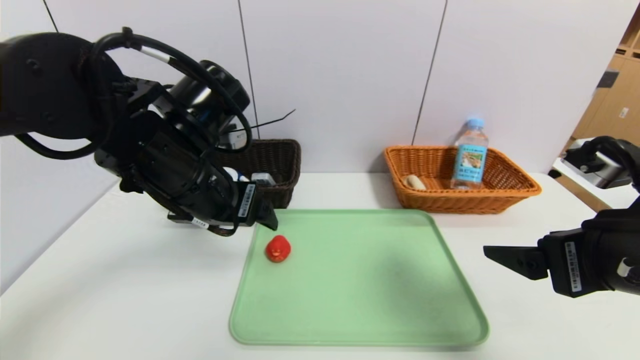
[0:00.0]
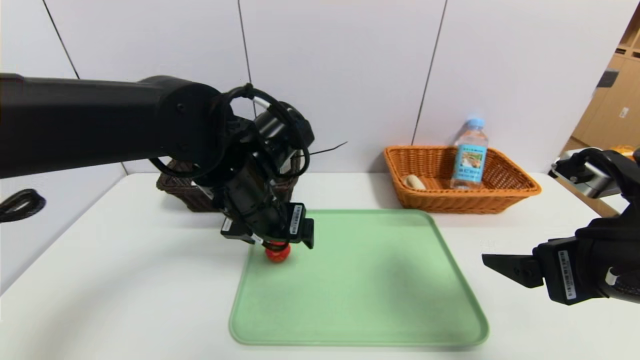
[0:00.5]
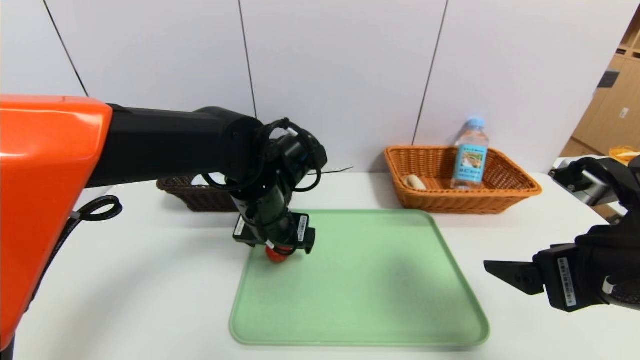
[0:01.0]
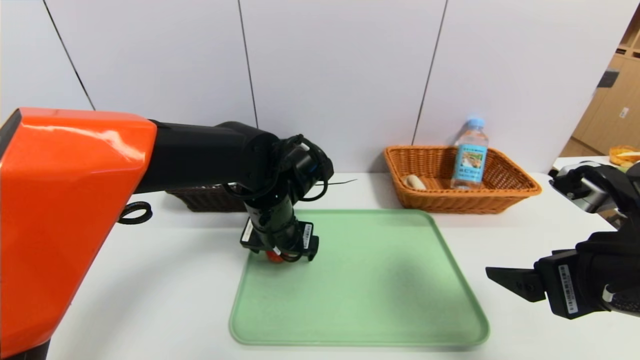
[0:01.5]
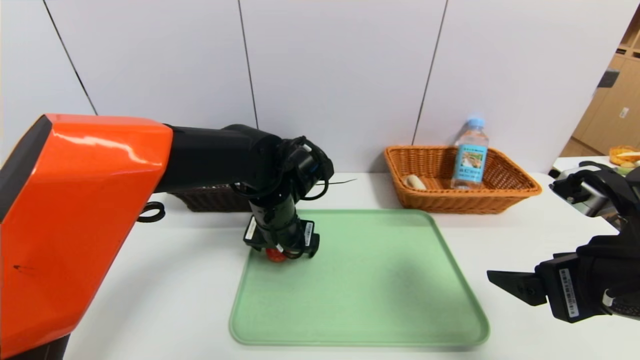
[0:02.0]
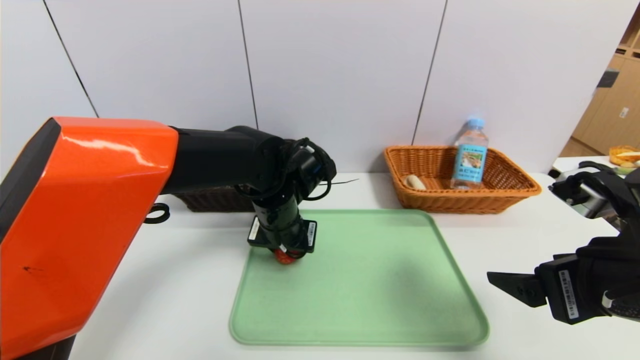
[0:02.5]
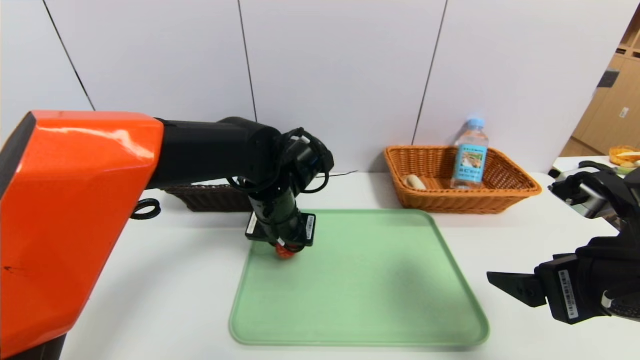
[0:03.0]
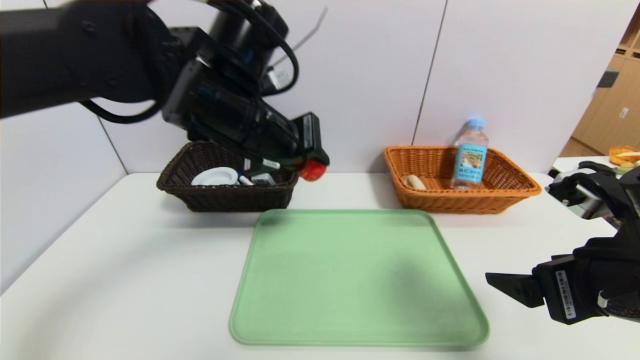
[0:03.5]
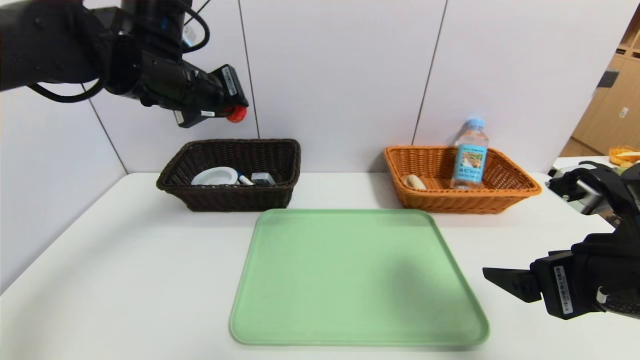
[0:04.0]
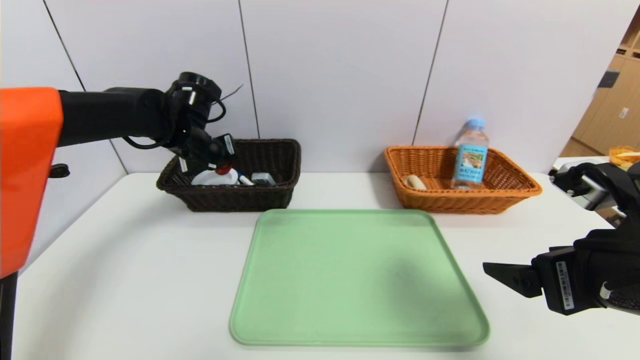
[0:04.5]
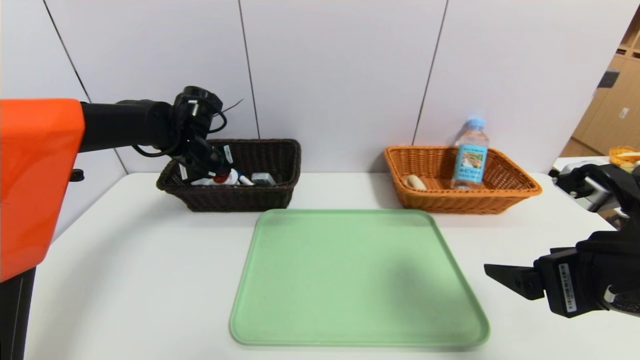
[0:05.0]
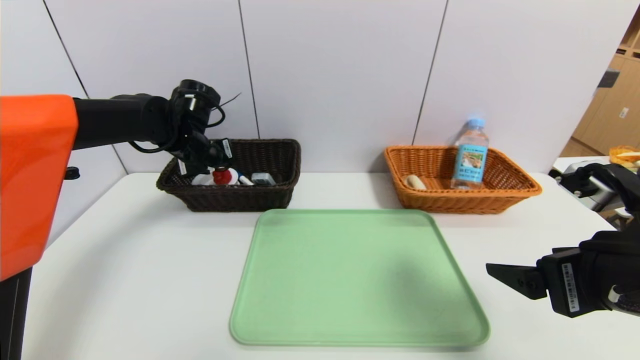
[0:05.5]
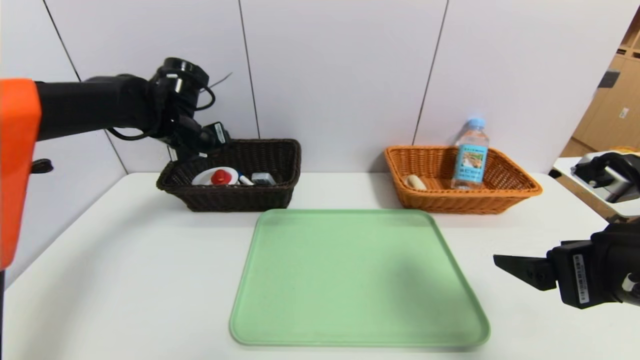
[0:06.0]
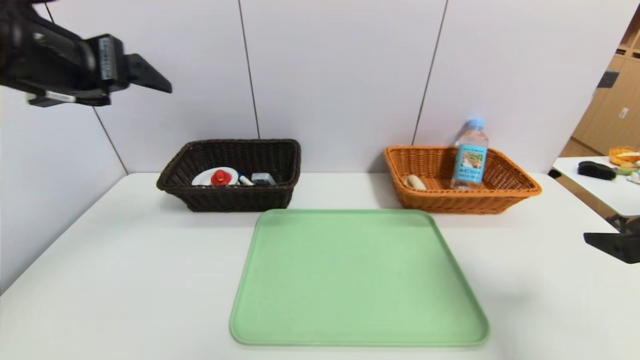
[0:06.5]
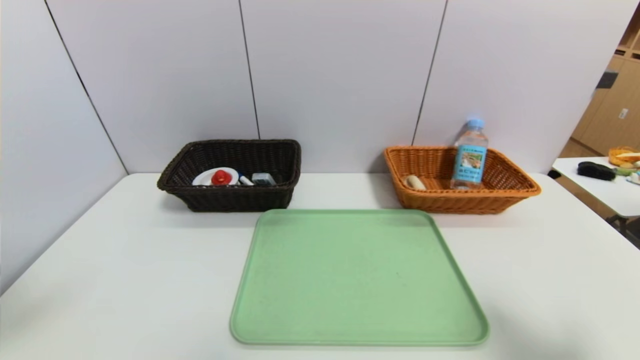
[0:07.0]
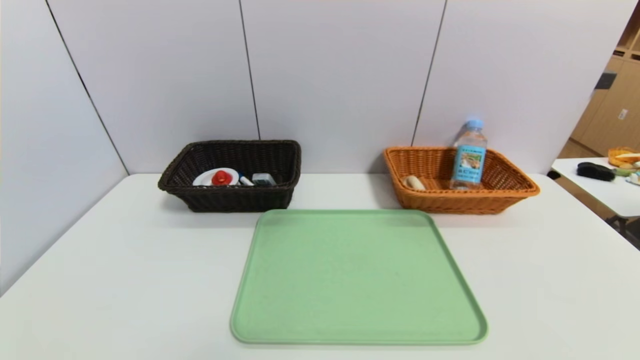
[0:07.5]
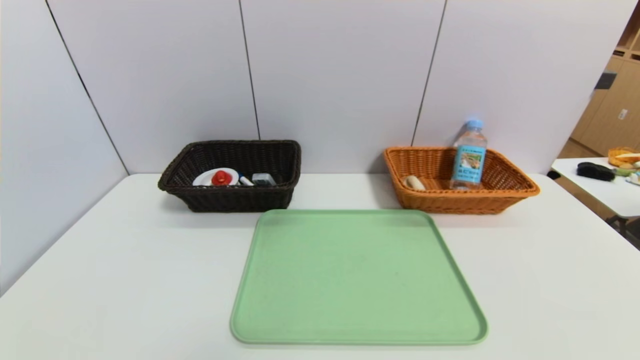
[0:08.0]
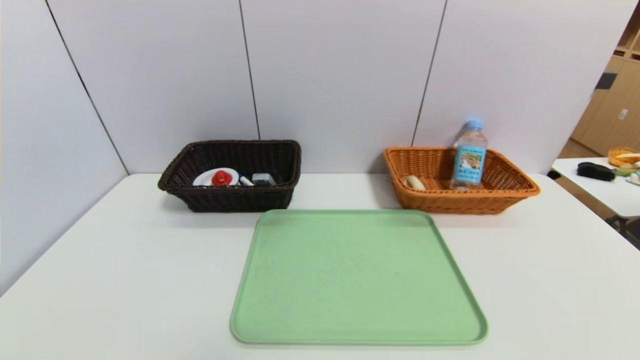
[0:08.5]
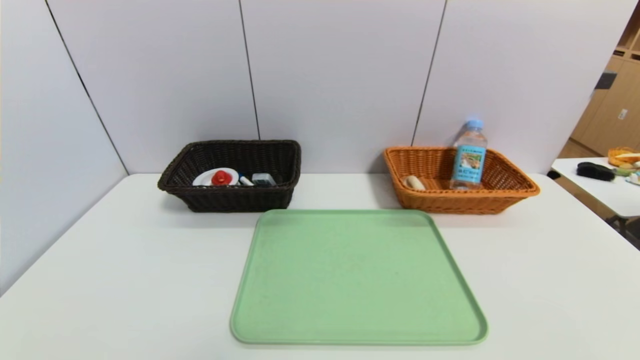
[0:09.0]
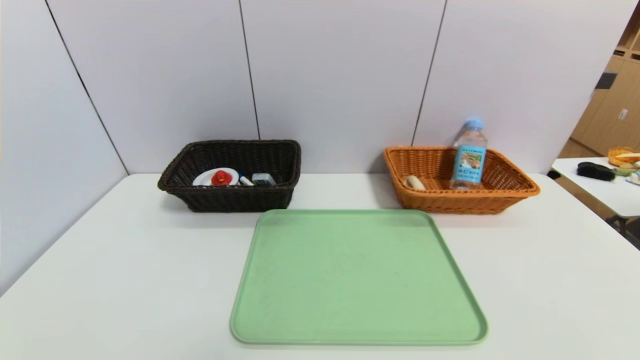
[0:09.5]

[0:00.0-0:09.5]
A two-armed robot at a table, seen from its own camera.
Task of the whole recording: place the food in the right basket with the right gripper, and place the non food items in the left basket with the left gripper.
Step, 0:00.0 to 0:05.5: Grasp the red duck and put it in the left basket.
0:00.0 to 0:02.0: The left gripper is displaced downward, to the right and forward by some 15 cm.
0:02.0 to 0:04.0: The left gripper is displaced upward and to the left by roughly 20 cm, and closes up.
0:04.0 to 0:05.5: The left gripper shifts some 15 cm downward and forward.
0:05.5 to 0:07.5: The left gripper is displaced backward by approximately 50 cm, and opens; the right gripper shifts some 20 cm backward and to the right.

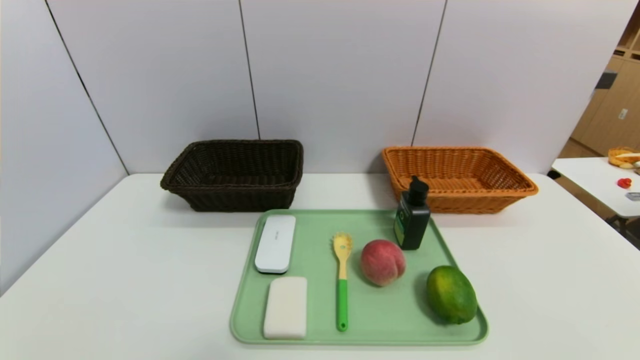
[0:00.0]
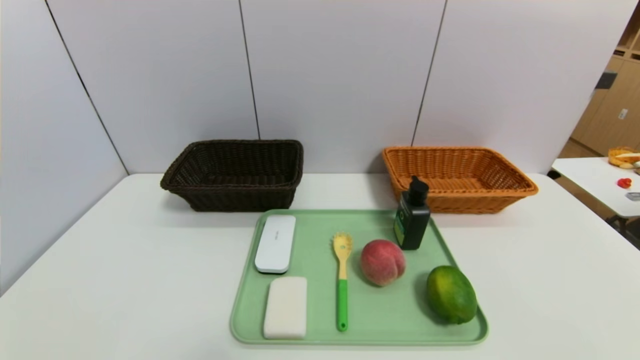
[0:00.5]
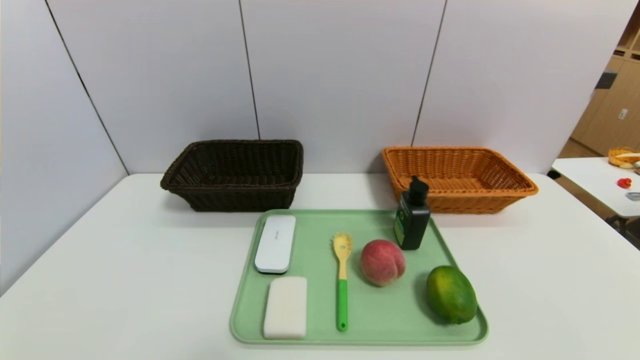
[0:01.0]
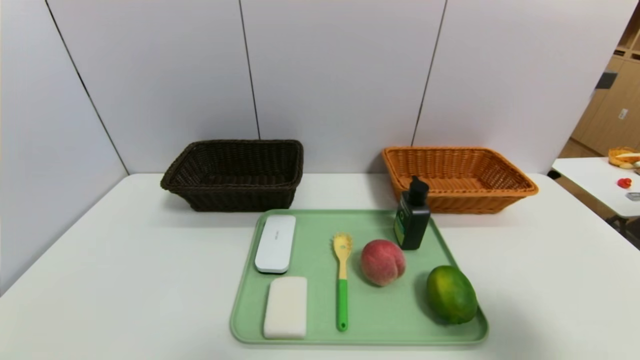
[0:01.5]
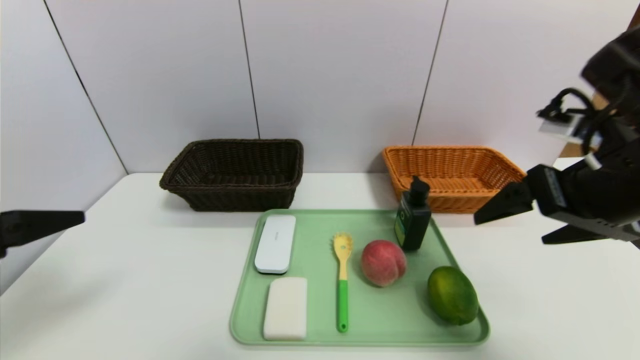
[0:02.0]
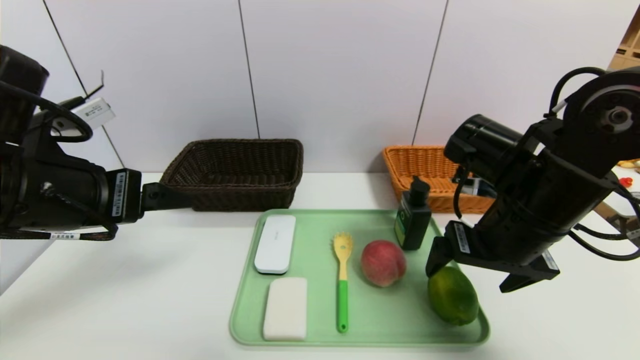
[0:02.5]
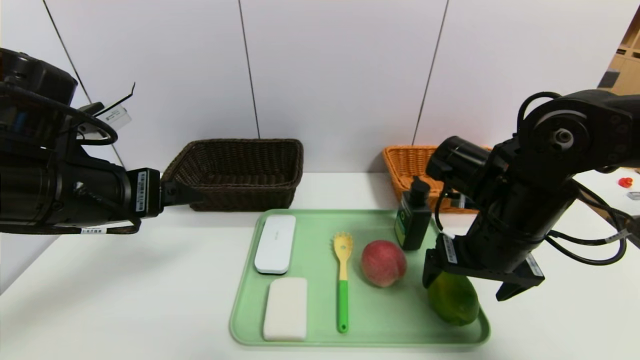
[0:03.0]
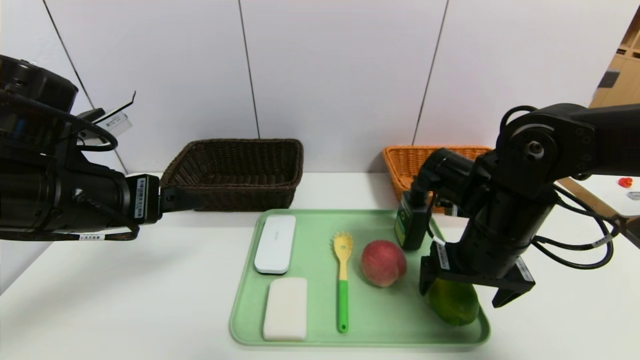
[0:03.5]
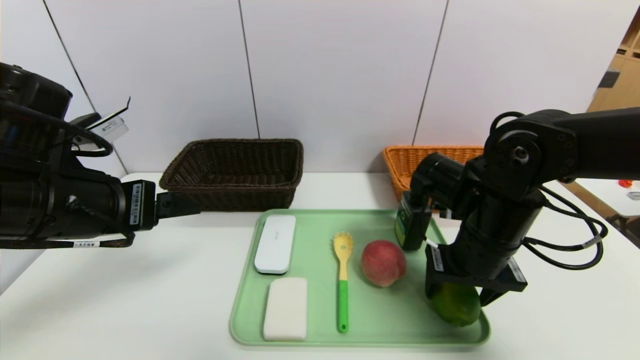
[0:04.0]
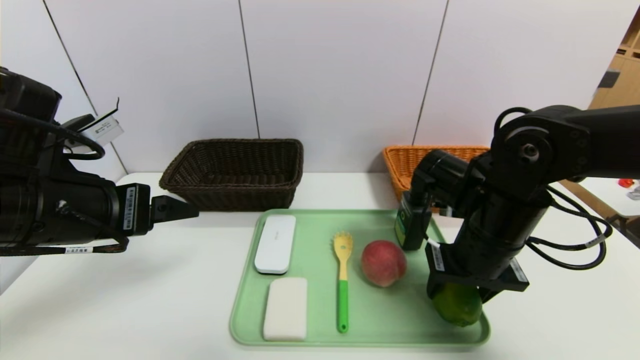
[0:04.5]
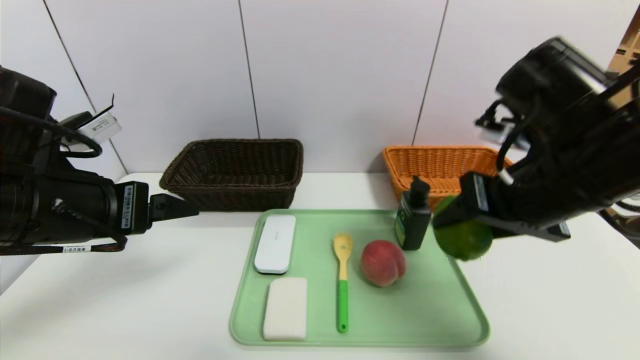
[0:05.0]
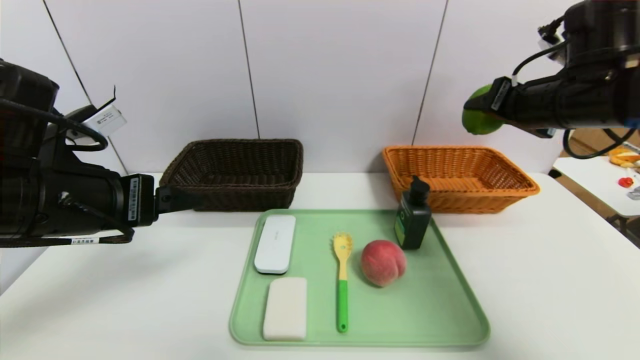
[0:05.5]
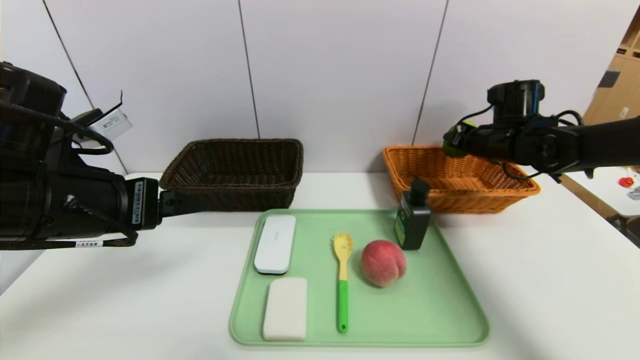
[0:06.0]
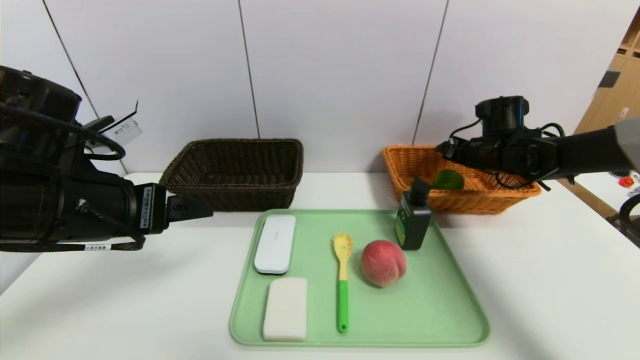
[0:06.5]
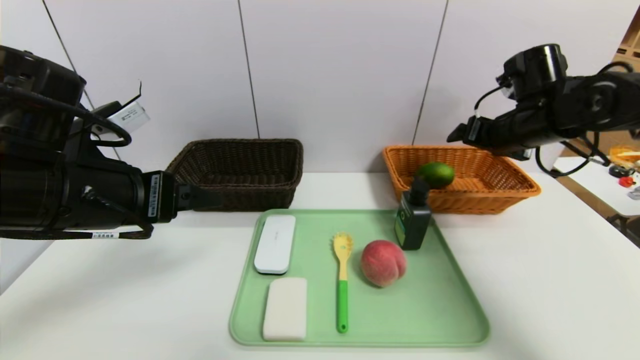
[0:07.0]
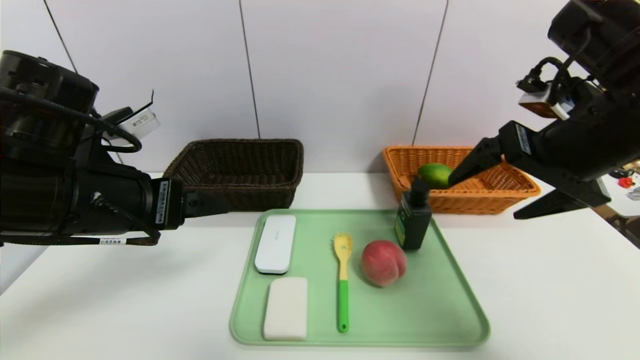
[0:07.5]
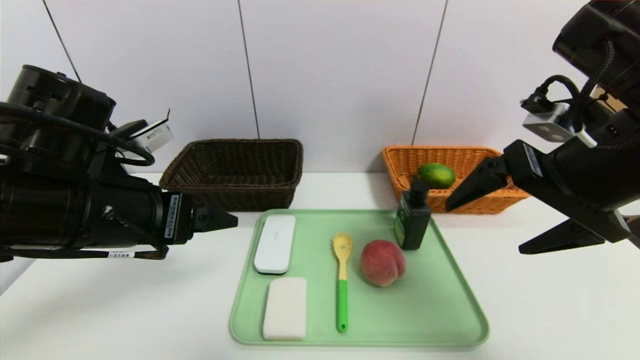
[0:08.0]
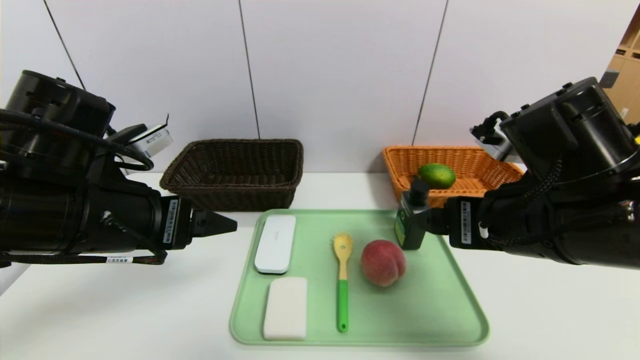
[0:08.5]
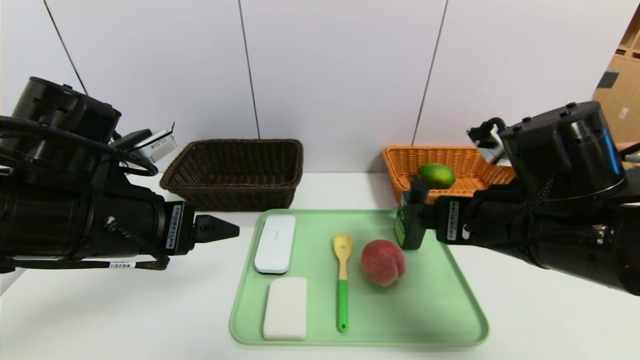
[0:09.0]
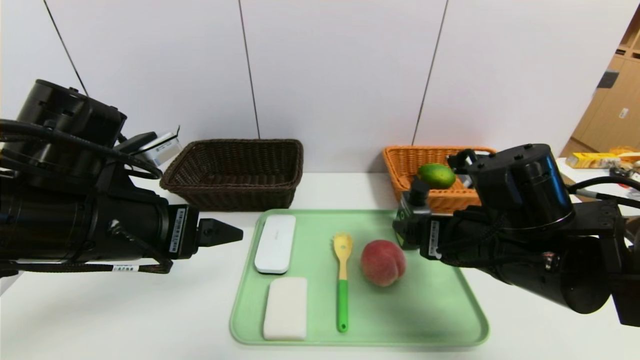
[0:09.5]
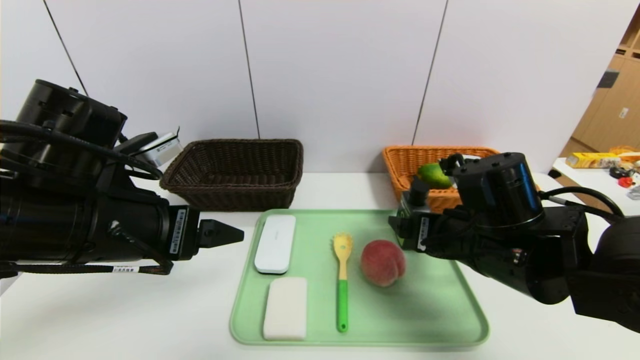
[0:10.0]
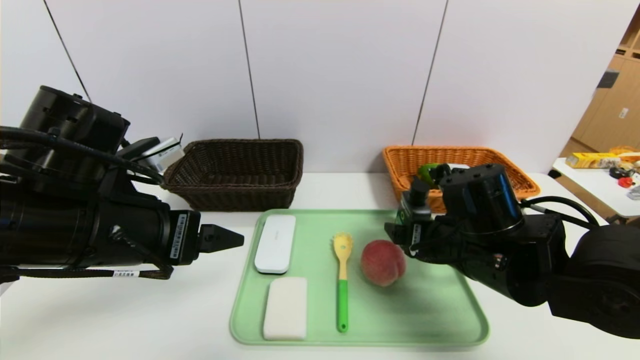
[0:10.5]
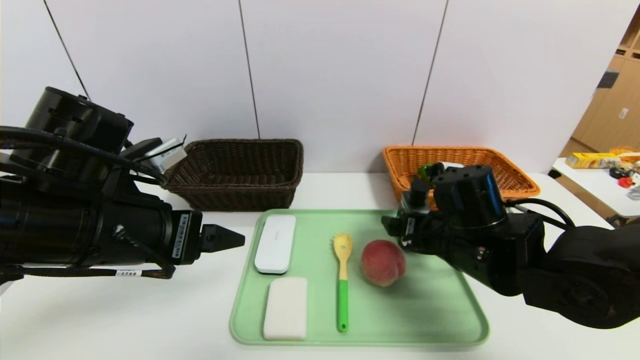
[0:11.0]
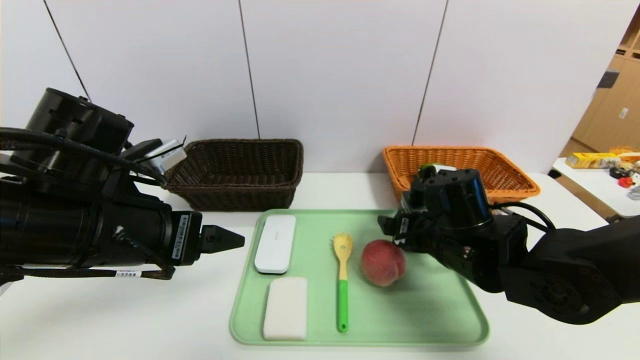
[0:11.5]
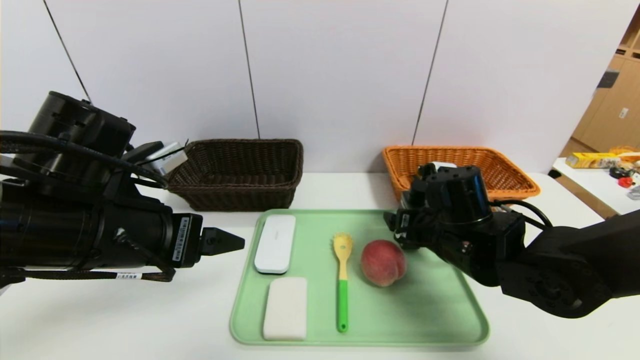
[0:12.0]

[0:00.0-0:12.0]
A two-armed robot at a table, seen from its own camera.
Task of the whole recording: place the food in the right basket with the right gripper, and place the non food items in the left basket with the left gripper.
Step, 0:00.0 to 0:07.0: Grasp the lemon and put it in the right basket.
0:00.0 to 0:02.0: The right gripper heads forward and upward, covering some 30 cm. The left gripper moves upward and forward, roughly 25 cm.
0:02.0 to 0:04.0: The left gripper heads forward and to the right, covering about 10 cm; the right gripper travels downward, to the left and forward by approximately 15 cm, and closes.
0:04.0 to 0:06.0: The right gripper shifts approximately 20 cm forward and to the right.
0:06.0 to 0:08.0: The right gripper shifts roughly 25 cm backward and upward, and opens up.
0:08.0 to 0:10.0: The right gripper shifts about 15 cm downward.
0:10.0 to 0:12.0: The right gripper ends up some 5 cm from where it was.
